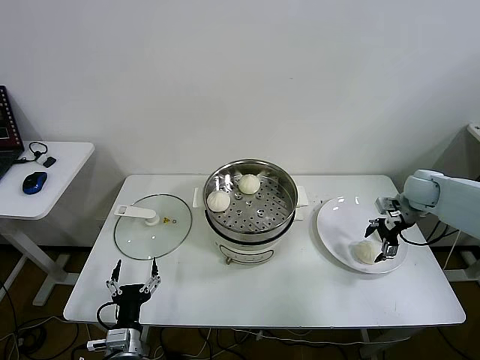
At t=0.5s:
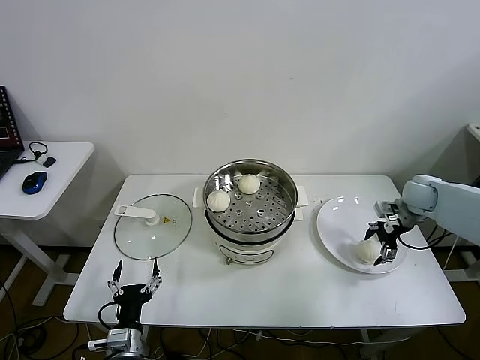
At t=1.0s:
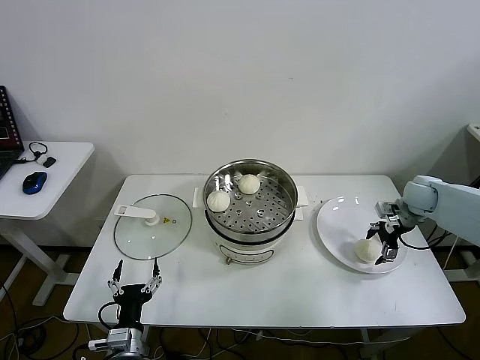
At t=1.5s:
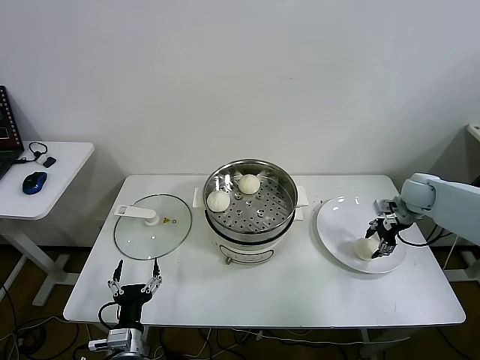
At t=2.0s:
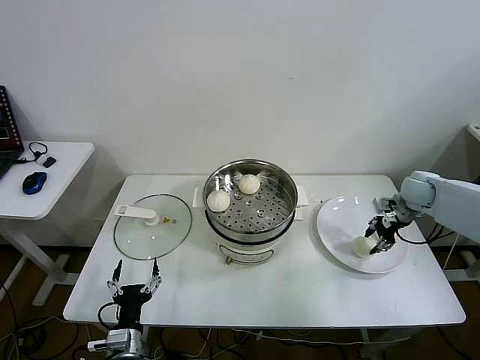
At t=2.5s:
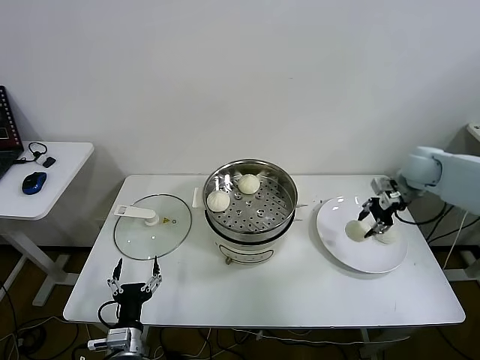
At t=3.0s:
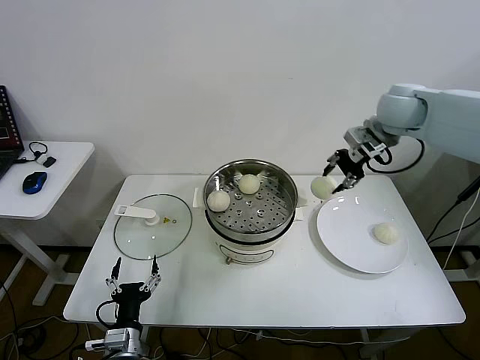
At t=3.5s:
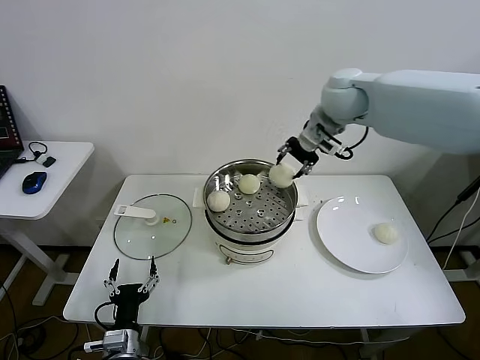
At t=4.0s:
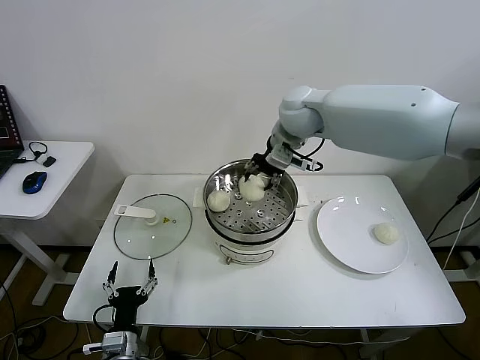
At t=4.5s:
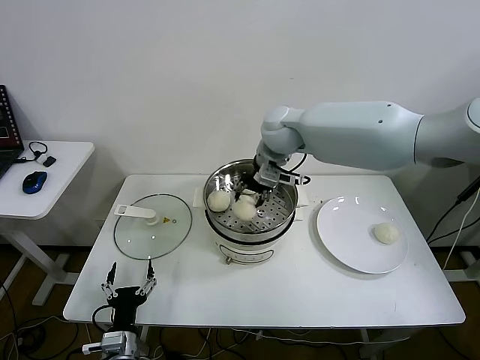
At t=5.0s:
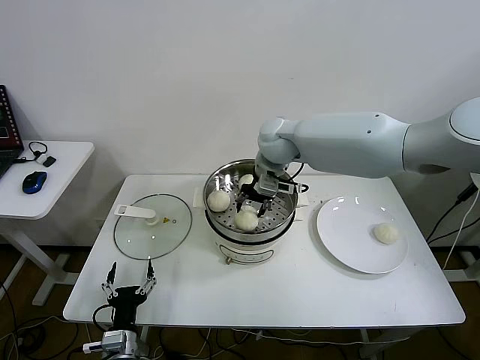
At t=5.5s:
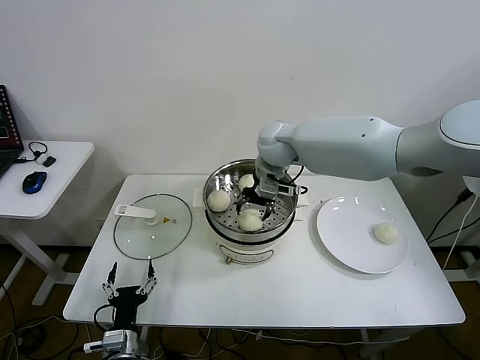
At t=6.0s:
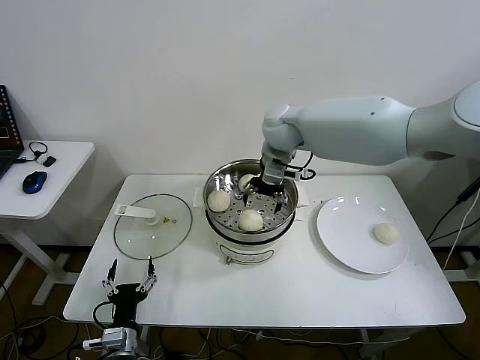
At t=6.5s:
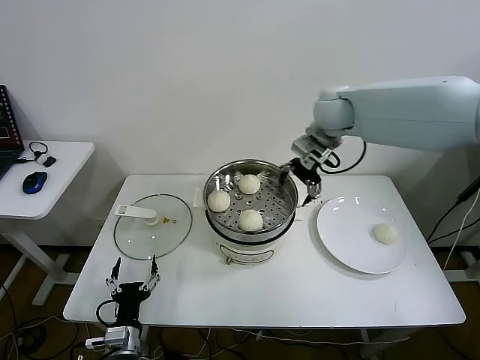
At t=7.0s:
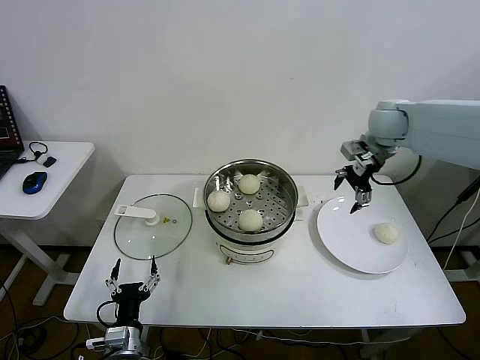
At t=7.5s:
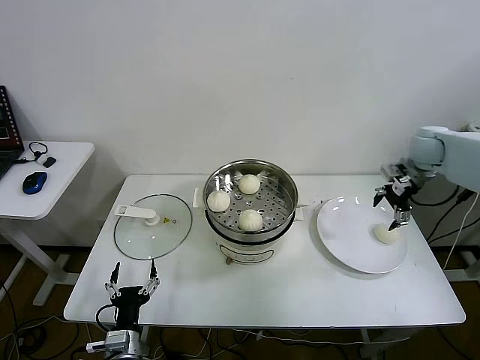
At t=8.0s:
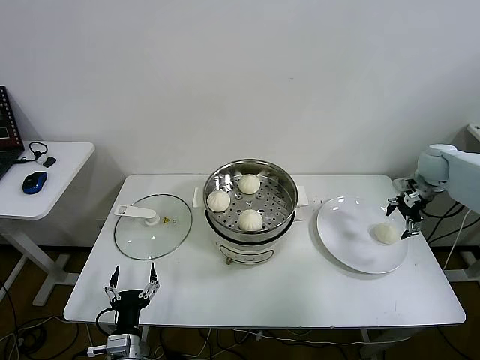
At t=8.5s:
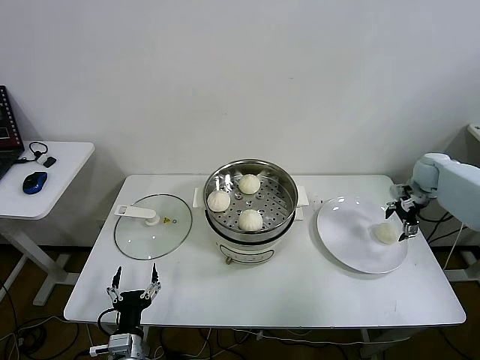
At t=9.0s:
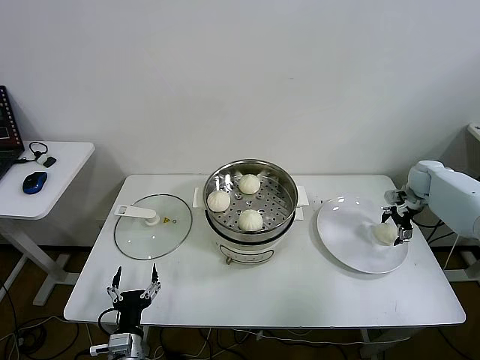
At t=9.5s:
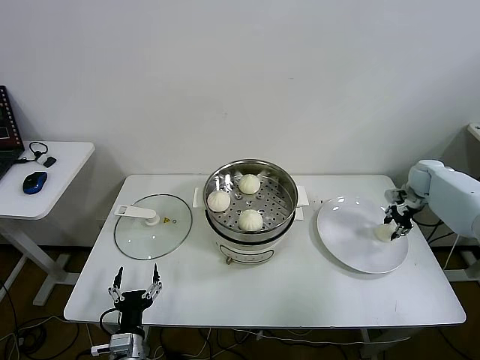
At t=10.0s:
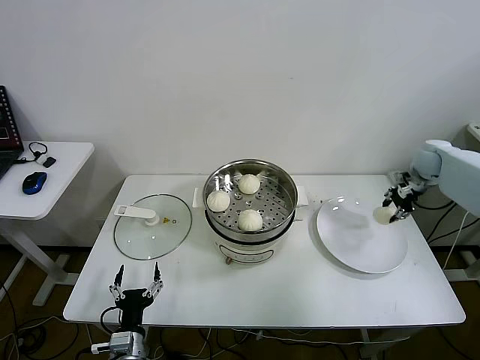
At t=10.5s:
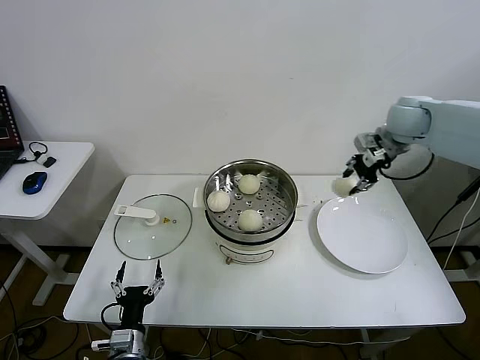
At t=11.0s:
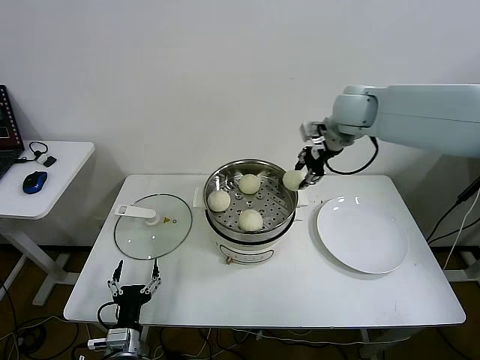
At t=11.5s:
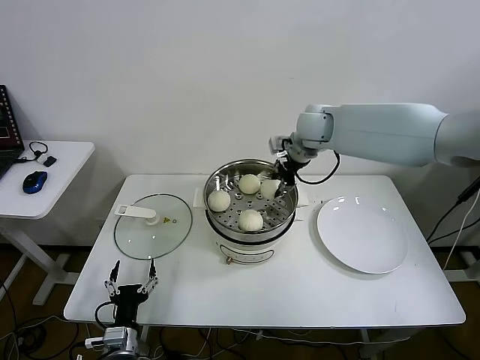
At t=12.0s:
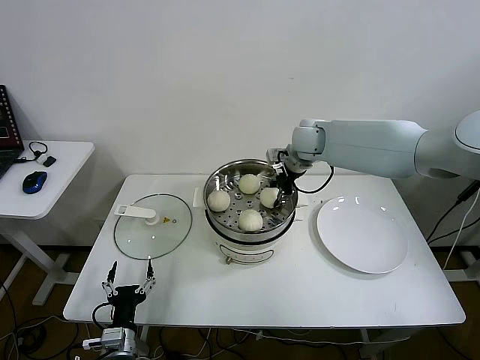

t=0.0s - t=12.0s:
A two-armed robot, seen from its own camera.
Step, t=0.0s - t=2.0s: Grasp the baozi in the plate with right gripper.
Step, t=2.5s - t=5.5s: Place the baozi on the steamer with right gripper.
Step, t=6.0s - t=9.5s: Grasp the baozi in the plate with right gripper.
t=0.0s - t=2.0s: The right gripper closes.
t=2.0s - t=4.0s: The right gripper goes about 40 cm to the left and upward.
t=4.0s - t=6.0s: The right gripper opens.
t=6.0s - t=8.0s: The right gripper travels to the right by about 40 cm.
t=8.0s - t=10.0s: The right gripper closes its fingers.
t=10.0s - t=12.0s: The right gripper shifts about 35 cm to the left.

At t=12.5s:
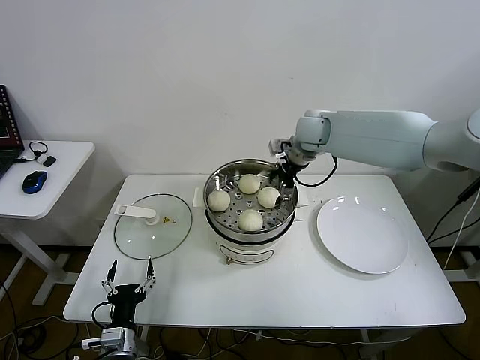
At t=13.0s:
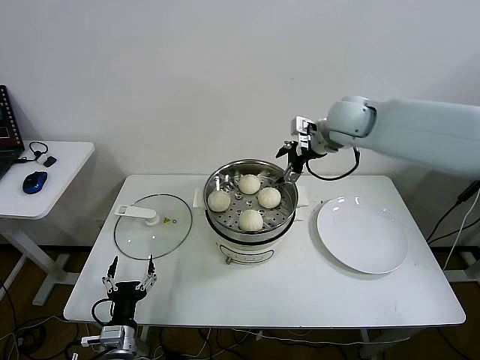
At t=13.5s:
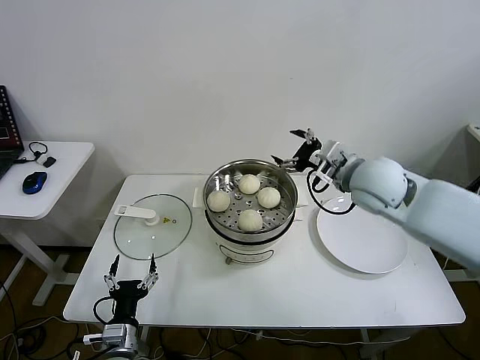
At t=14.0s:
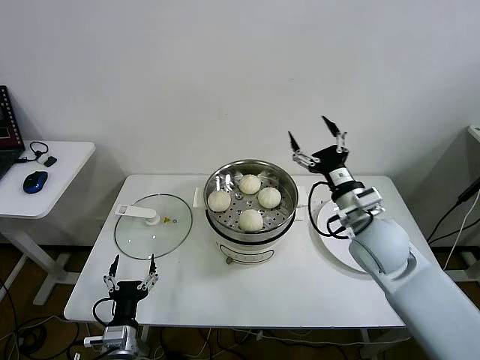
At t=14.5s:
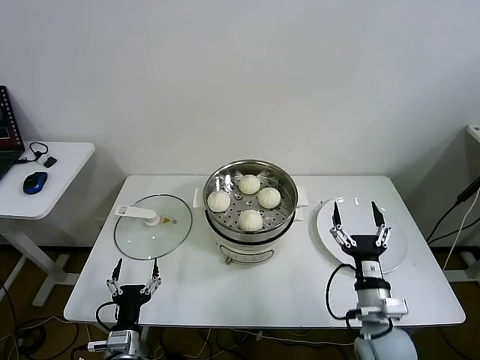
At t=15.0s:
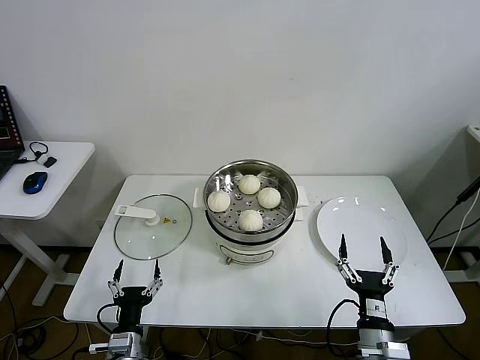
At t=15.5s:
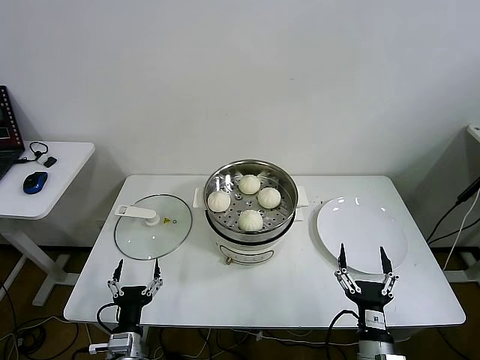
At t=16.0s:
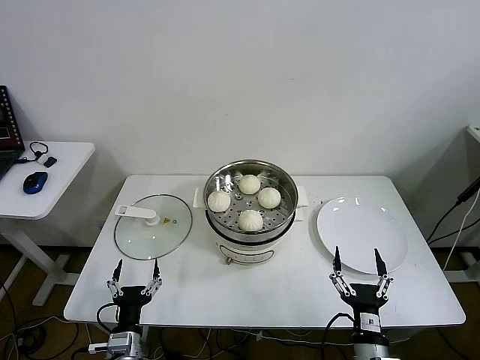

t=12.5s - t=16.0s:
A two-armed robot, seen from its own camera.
t=12.5s - t=14.5s: The right gripper moves backward and downward, roughly 40 cm.
t=14.5s - t=16.0s: The right gripper is displaced backward and downward by approximately 10 cm.

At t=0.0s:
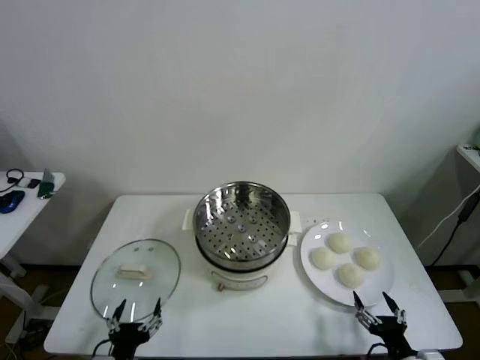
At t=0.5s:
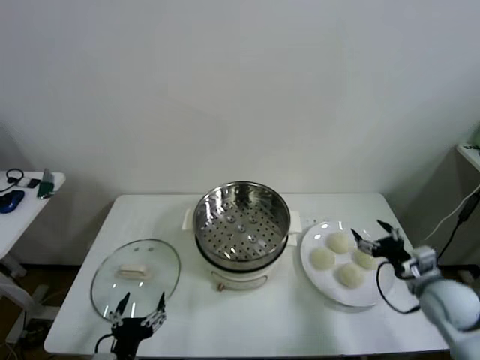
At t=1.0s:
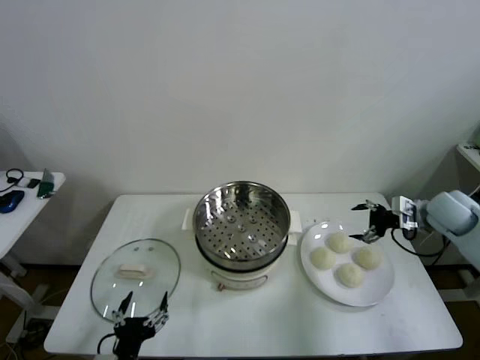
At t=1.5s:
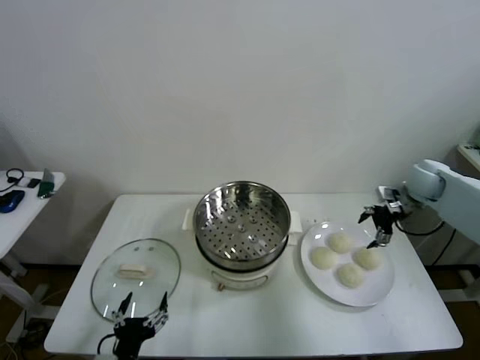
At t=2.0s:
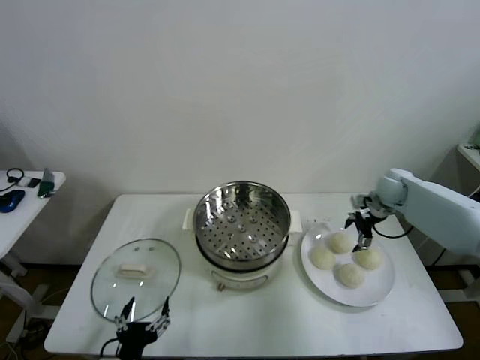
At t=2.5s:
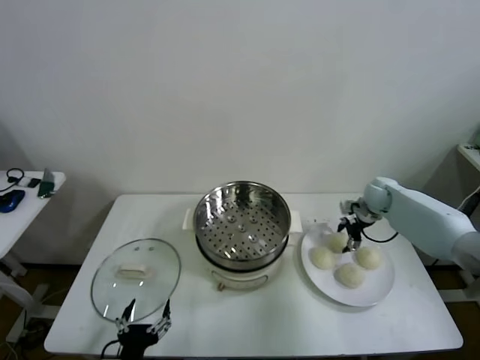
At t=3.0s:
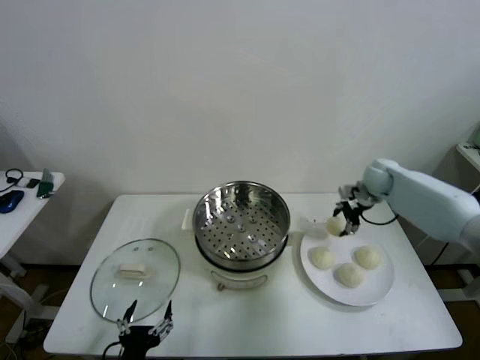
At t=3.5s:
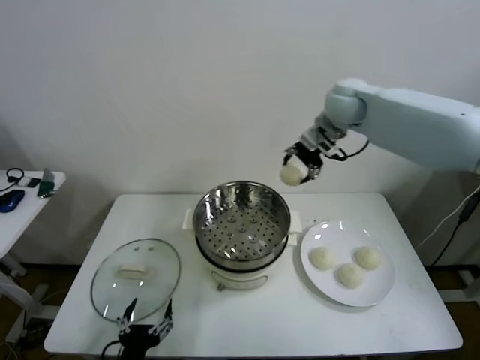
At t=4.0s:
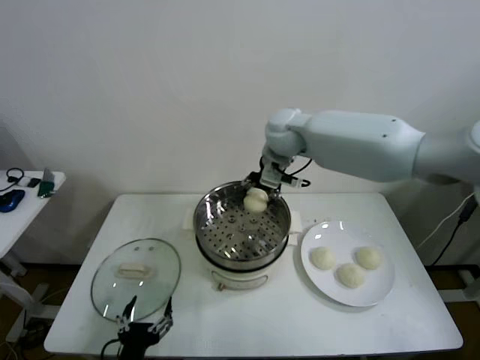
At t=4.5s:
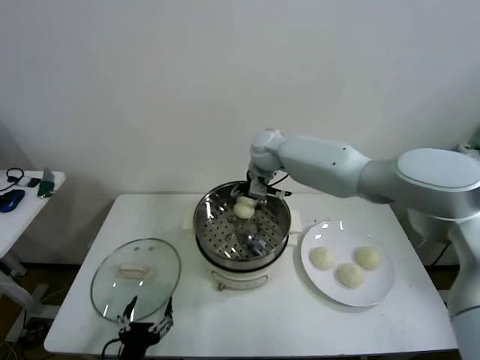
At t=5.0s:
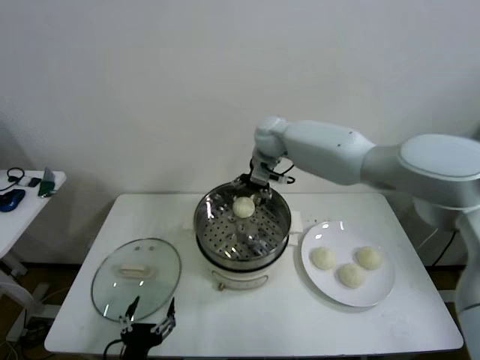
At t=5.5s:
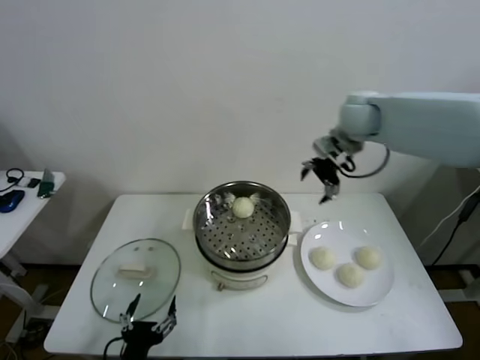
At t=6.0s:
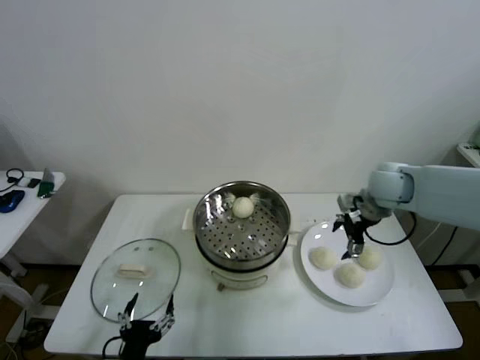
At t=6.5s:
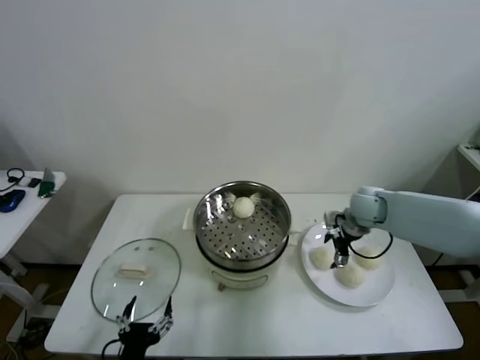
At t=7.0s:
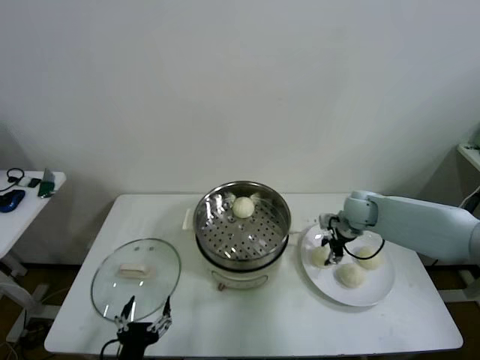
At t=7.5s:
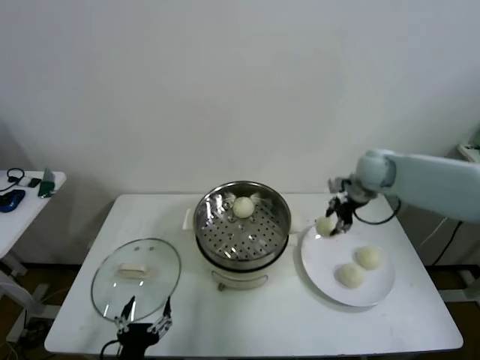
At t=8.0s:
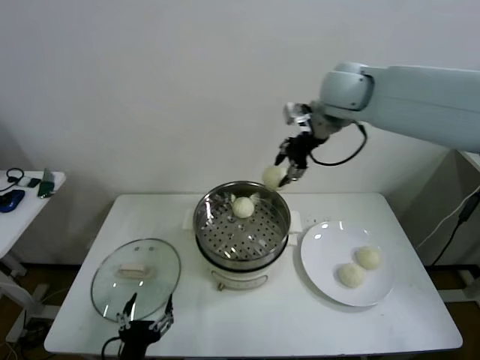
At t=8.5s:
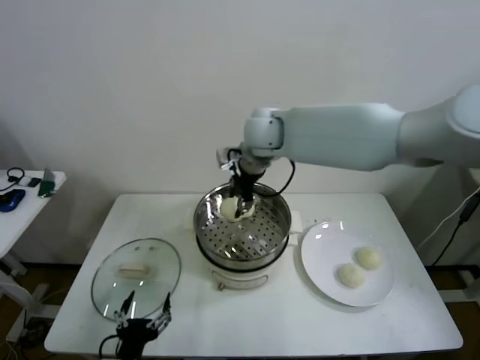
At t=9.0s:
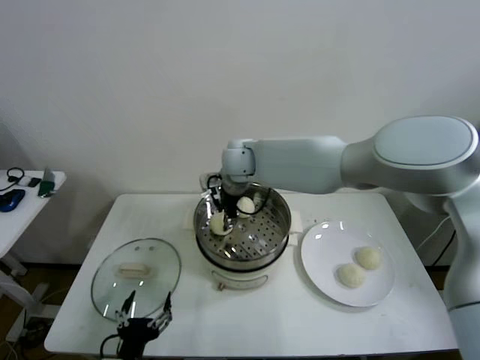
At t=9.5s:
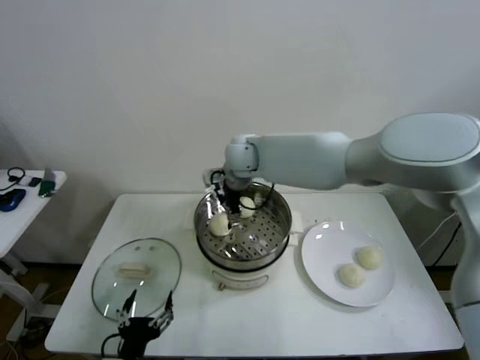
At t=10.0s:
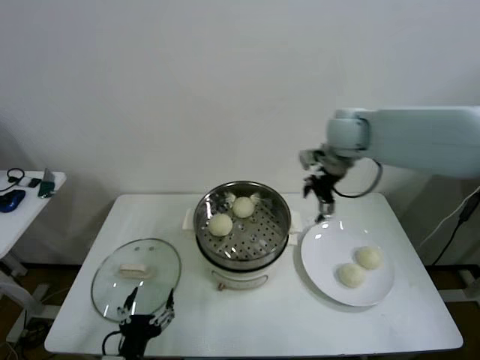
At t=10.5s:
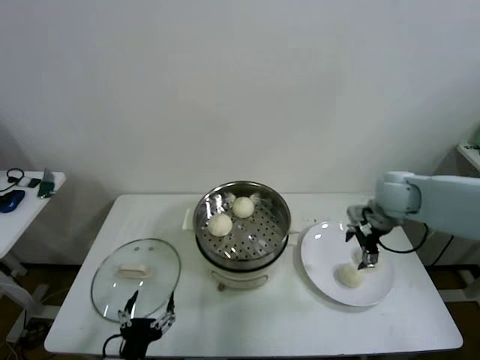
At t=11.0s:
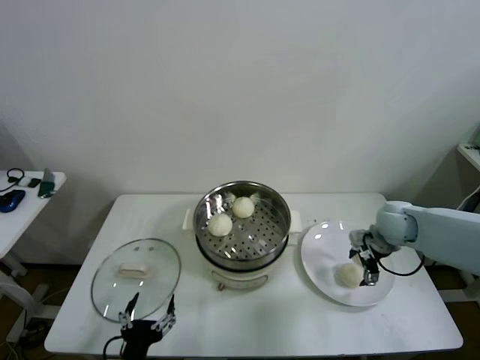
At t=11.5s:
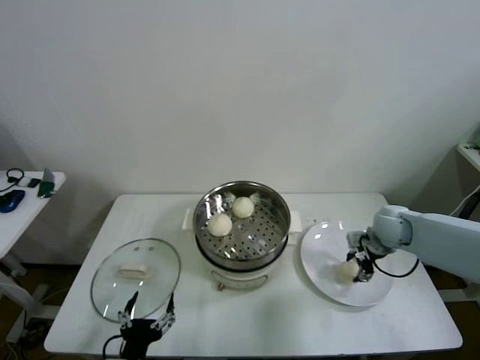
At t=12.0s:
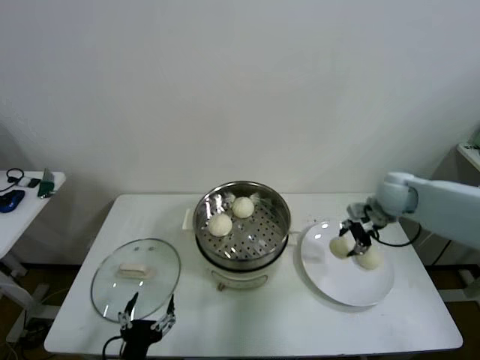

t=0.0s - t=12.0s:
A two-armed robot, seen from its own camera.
Step, t=0.0s - t=2.5s: Grasp the baozi in the plate with right gripper.
Step, t=3.0s - t=4.5s: Place the baozi on the steamer with right gripper.
Step, t=5.0s - t=7.0s: Grasp the baozi in the plate with right gripper.
Step, t=7.5s - t=9.0s: Place the baozi on the steamer with right gripper.
Step, t=9.5s - t=11.5s: Grasp the baozi in the plate with right gripper.
t=2.0s - t=4.0s: The right gripper goes about 35 cm to the left and upward, and closes up.
t=4.0s - t=6.0s: The right gripper moves to the right, some 25 cm, and opens its fingers.
t=6.0s - t=8.0s: The right gripper goes approximately 25 cm upward and to the left, and closes.
t=8.0s - t=10.0s: The right gripper goes some 15 cm to the right and downward, and opens up.
t=10.0s - t=12.0s: The right gripper goes approximately 15 cm downward and to the right, and closes up.
